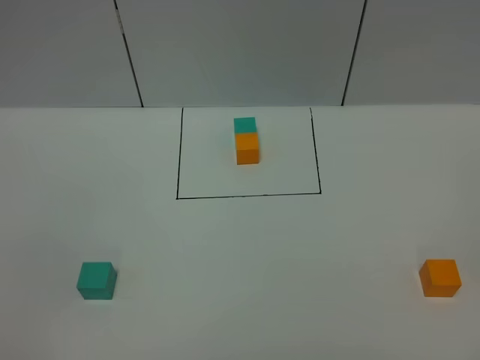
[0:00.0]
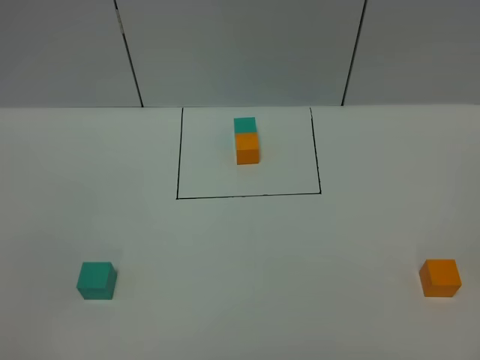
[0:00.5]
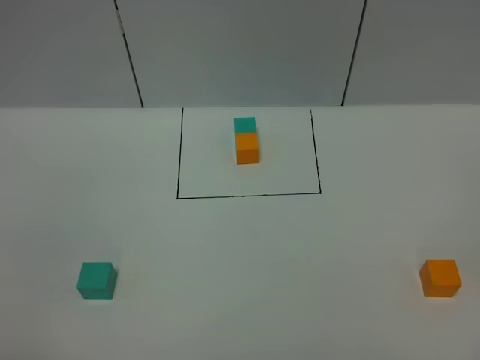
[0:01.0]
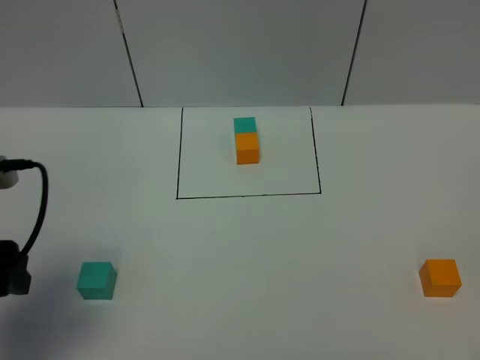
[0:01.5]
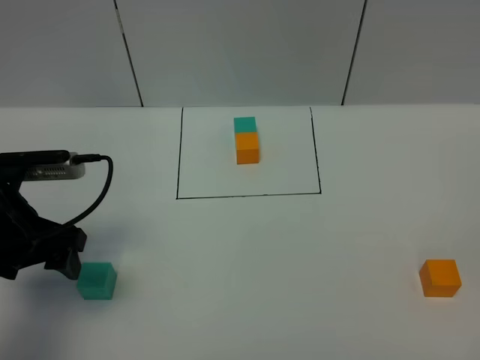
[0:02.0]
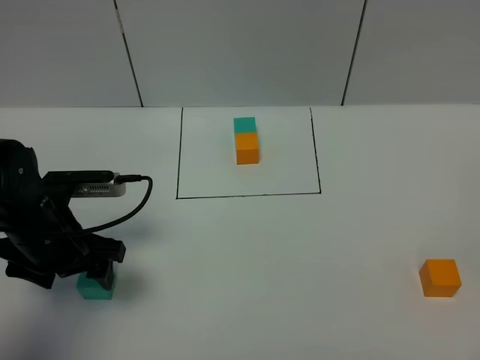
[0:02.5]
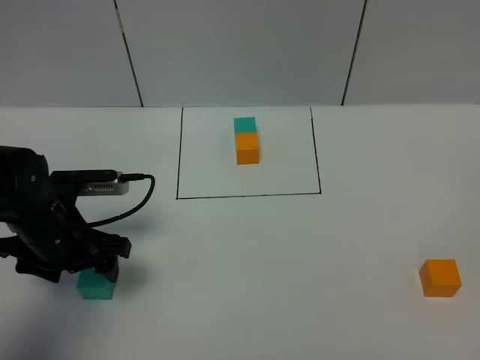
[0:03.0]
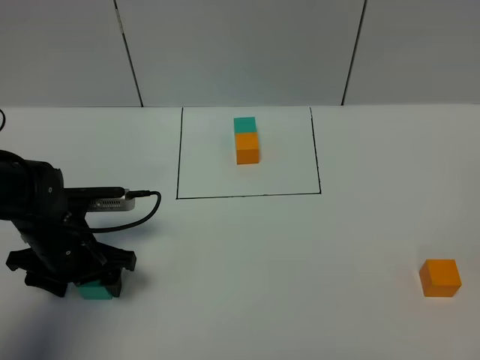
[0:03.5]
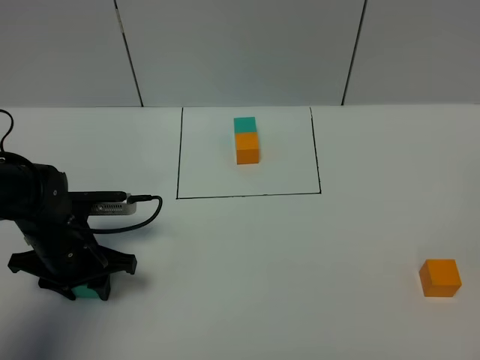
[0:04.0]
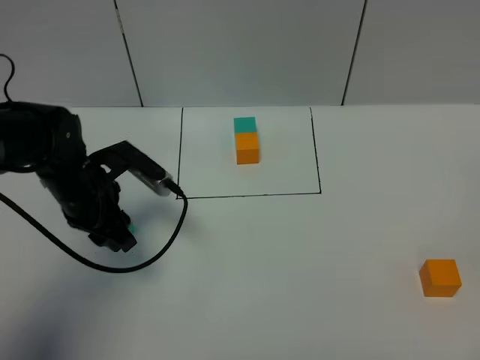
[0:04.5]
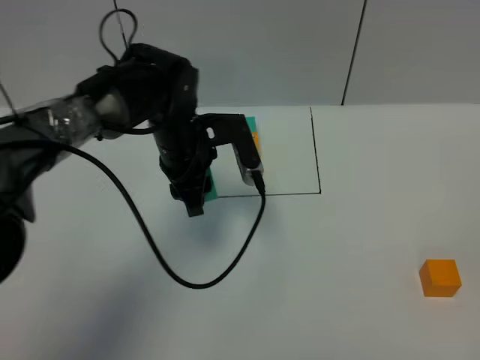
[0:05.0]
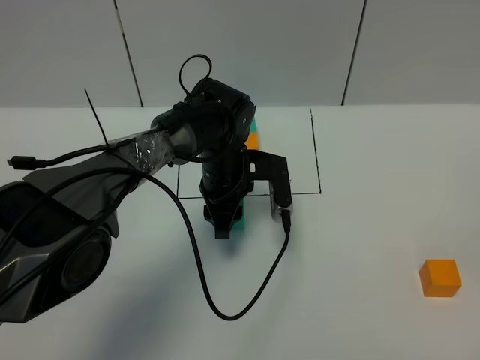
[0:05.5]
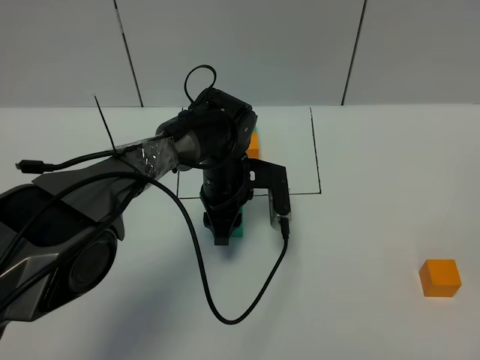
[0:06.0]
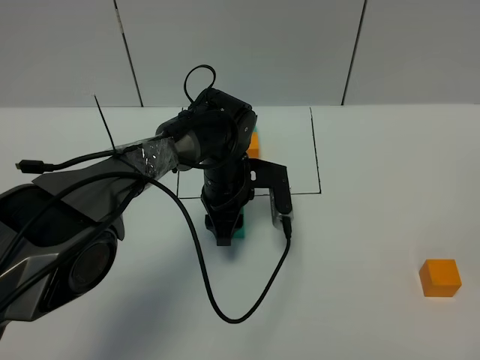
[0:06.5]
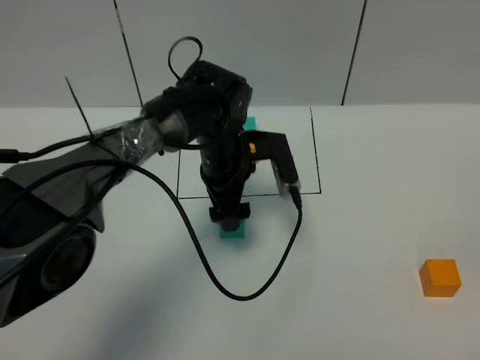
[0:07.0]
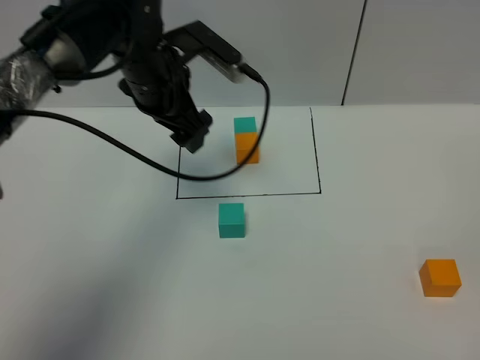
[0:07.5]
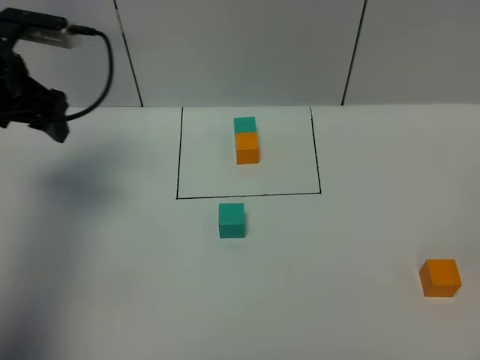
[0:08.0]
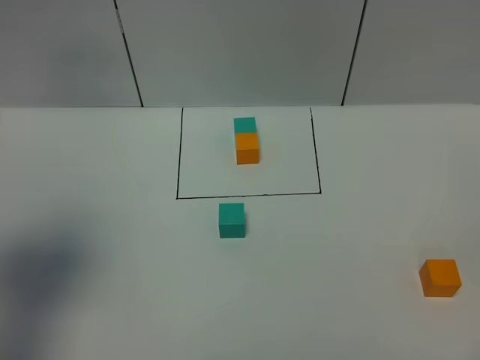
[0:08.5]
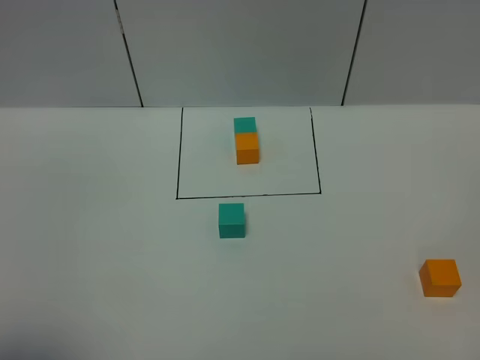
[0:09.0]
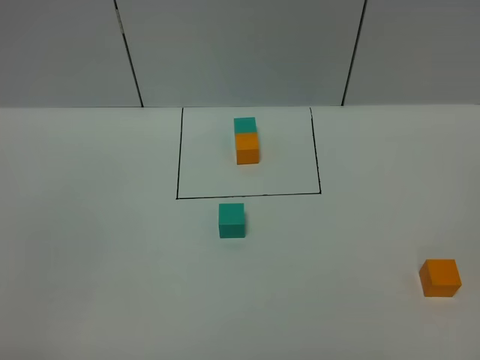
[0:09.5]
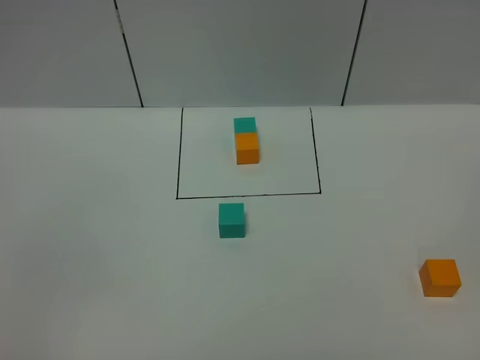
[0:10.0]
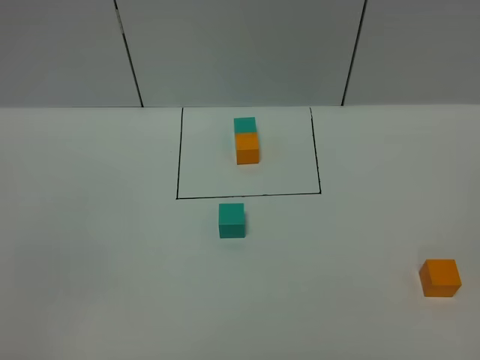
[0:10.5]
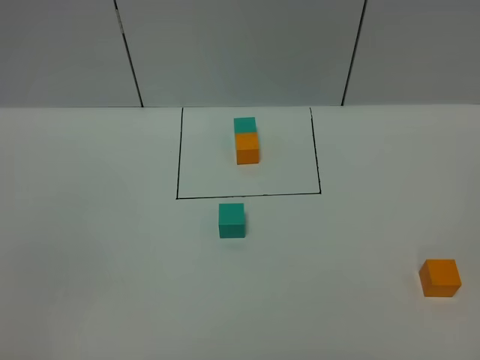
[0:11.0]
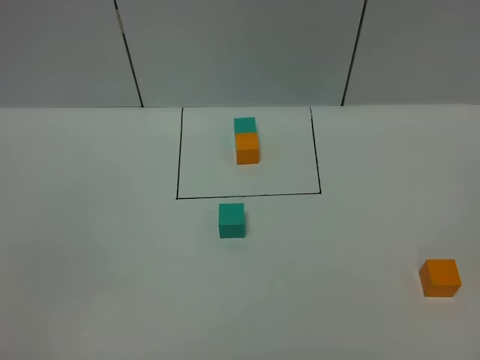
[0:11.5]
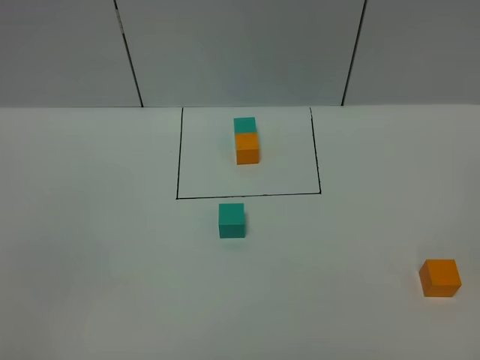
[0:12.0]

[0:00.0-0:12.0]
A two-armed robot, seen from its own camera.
Task of the whole recording: According to the building block template in front, assemble the scattered blocks together.
Step, 0:01.5 to 0:06.5: Put the green cube in the center of the table.
0:00.0 to 0:02.0: The left gripper goes roughly 30 cm forward.
0:02.0 to 0:04.0: The left gripper goes some 10 cm downward, and closes.
0:04.0 to 0:06.0: The left gripper is displaced to the right and forward by about 25 cm.
0:06.0 to 0:08.0: The left gripper moves to the left and upward, about 30 cm, and opens up.
0:08.0 to 0:10.0: The left gripper moves backward, some 40 cm.

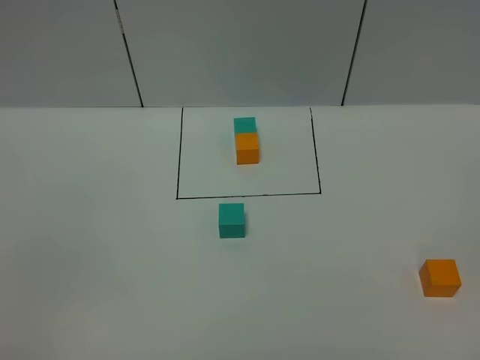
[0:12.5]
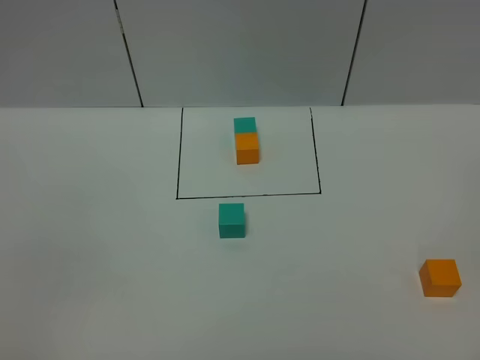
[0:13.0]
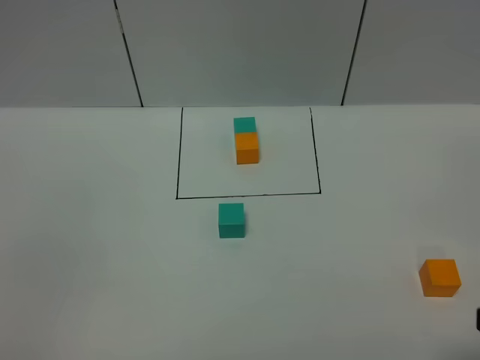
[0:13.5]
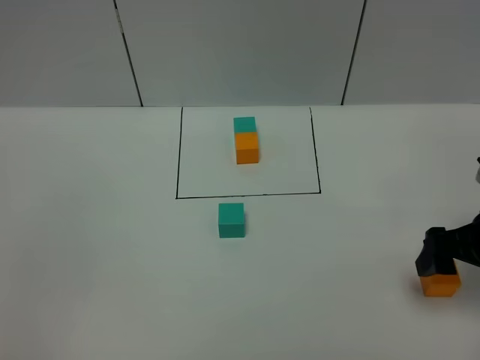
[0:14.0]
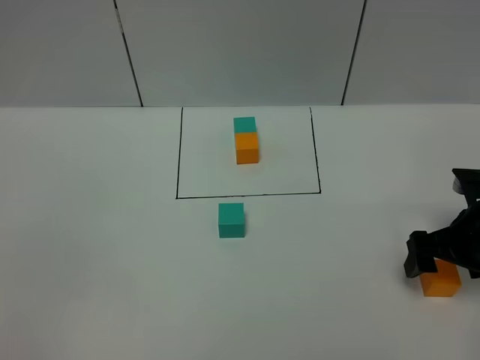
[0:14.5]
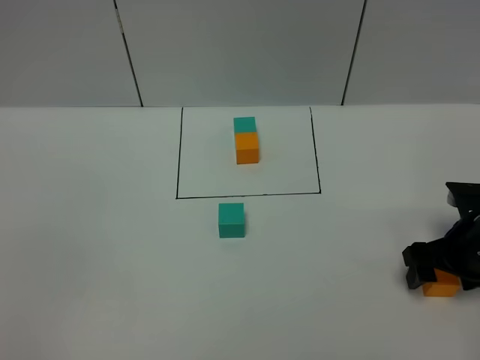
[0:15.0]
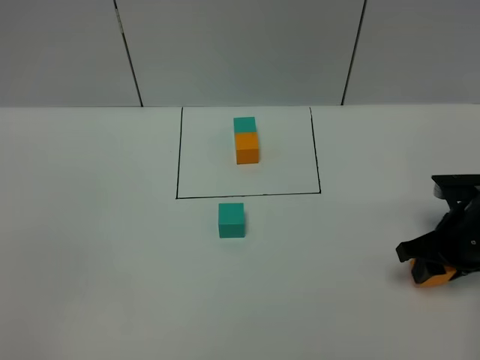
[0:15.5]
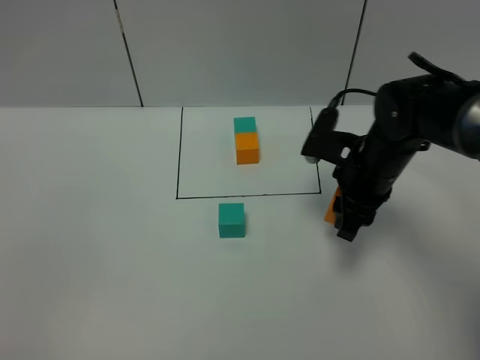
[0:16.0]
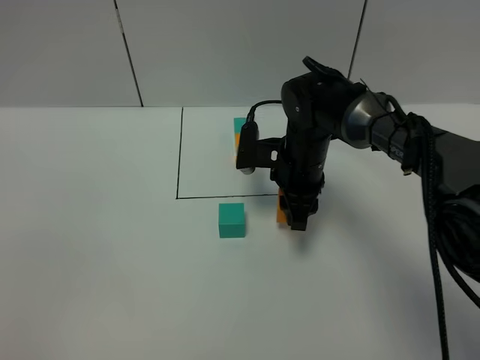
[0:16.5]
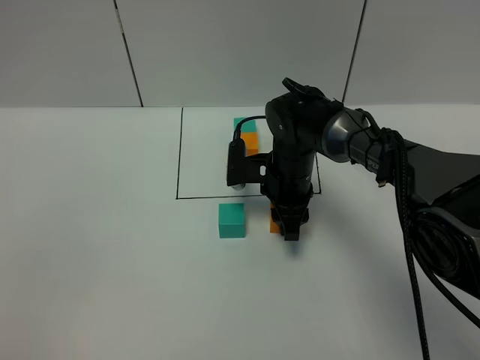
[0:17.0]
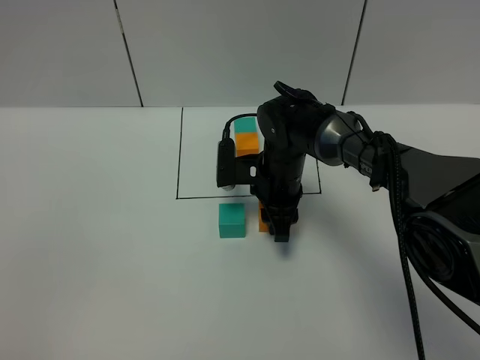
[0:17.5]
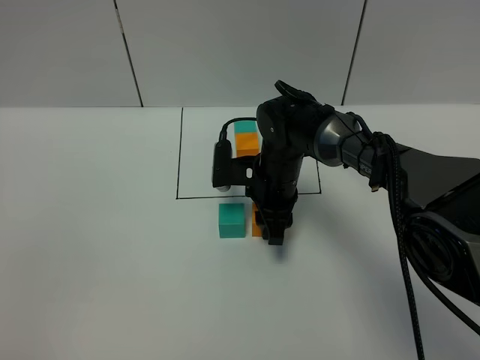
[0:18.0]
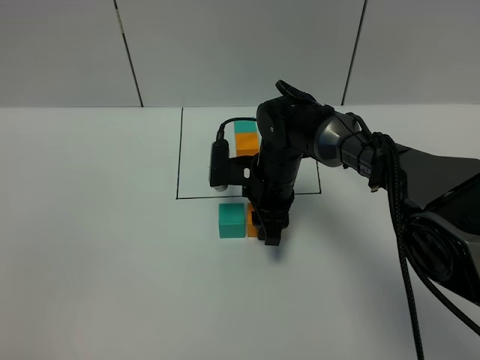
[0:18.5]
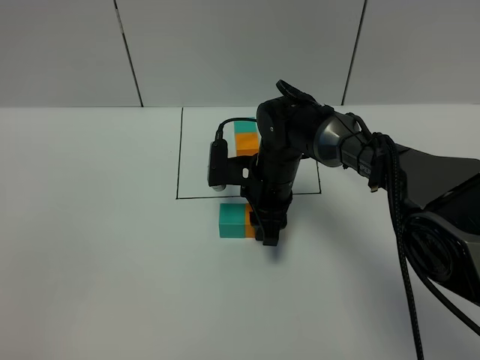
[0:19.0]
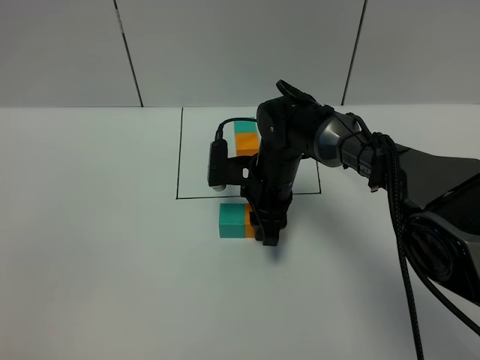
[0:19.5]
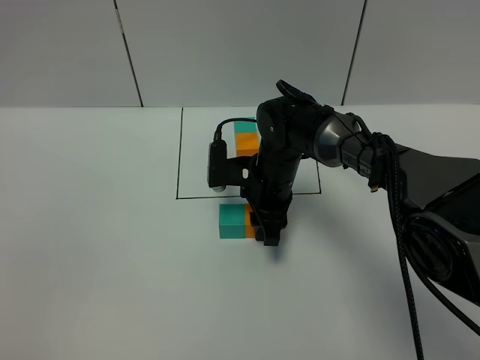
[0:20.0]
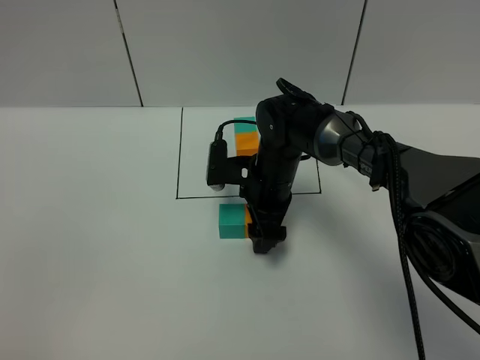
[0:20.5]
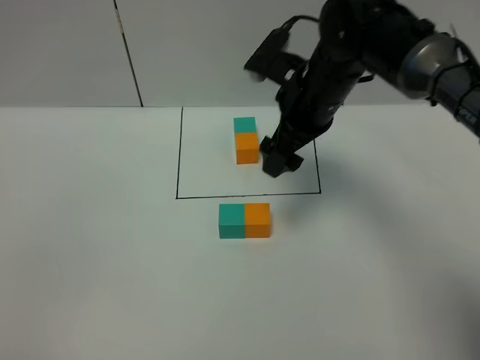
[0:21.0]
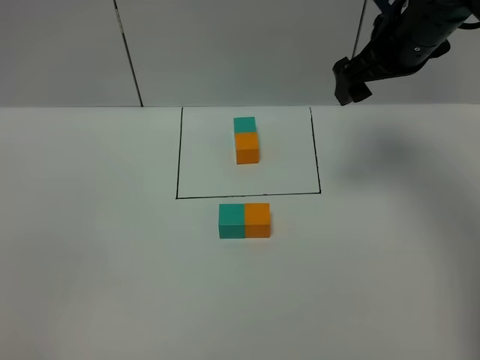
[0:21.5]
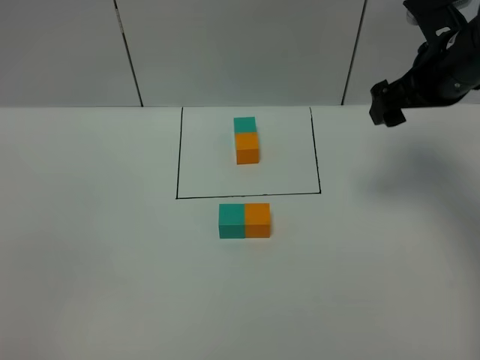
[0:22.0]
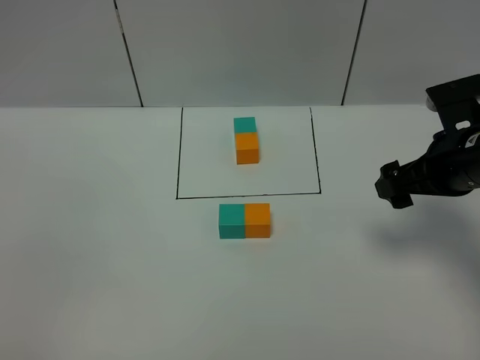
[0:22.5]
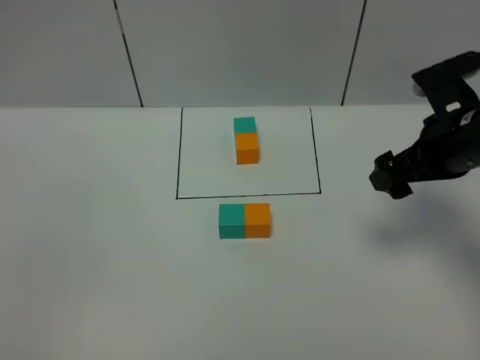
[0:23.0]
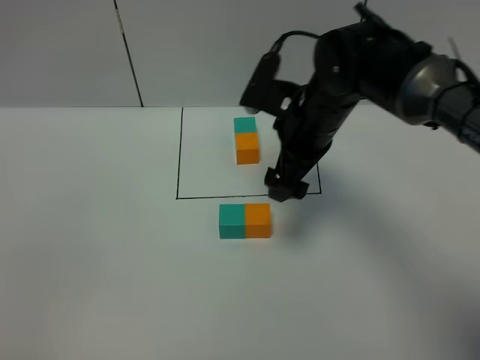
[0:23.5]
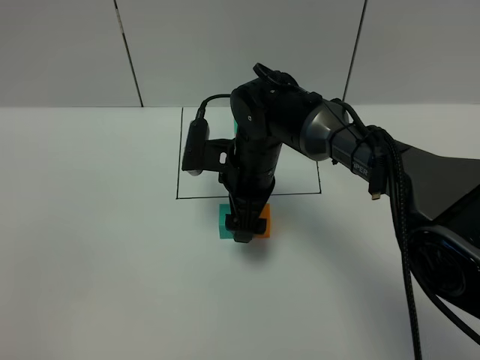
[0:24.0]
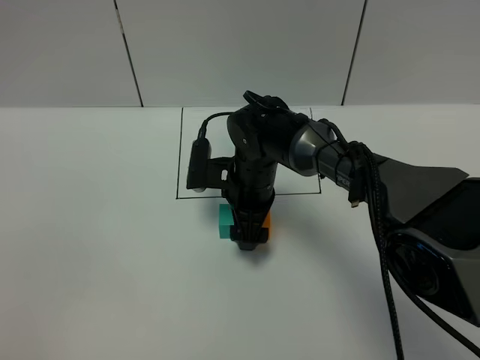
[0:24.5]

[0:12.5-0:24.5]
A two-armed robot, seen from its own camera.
Task of the whole recording: According to the building block template in front, assemble the scattered blocks together.
Step, 0:12.5 to 0:20.5: Put the orange cube on the right of the green cube.
0:12.5 to 0:14.5: The right gripper heads forward and downward, covering about 35 cm.
0:14.5 to 0:16.5: The right gripper goes some 25 cm to the left and forward, and closes.
0:16.5 to 0:18.5: The grippers stay close to where they were, moving slightly.
0:18.5 to 0:20.5: The right gripper opens its fingers.
0:20.5 to 0:22.5: The right gripper travels to the right, upward and backward by roughly 25 cm.
0:22.5 to 0:24.5: The right gripper heads to the left and downward, covering roughly 25 cm.

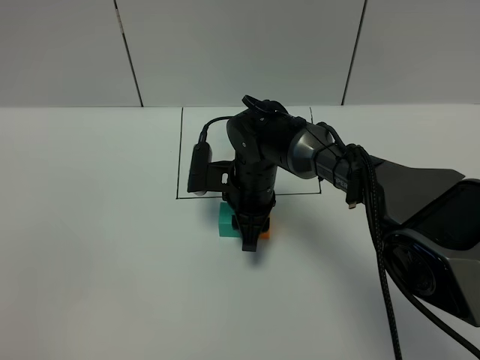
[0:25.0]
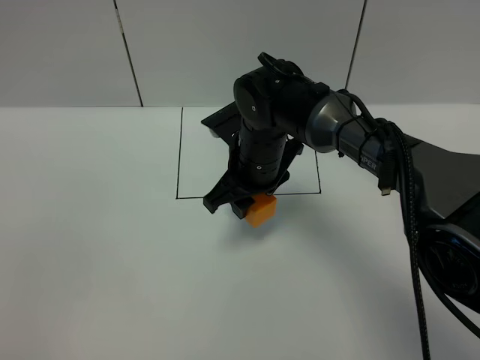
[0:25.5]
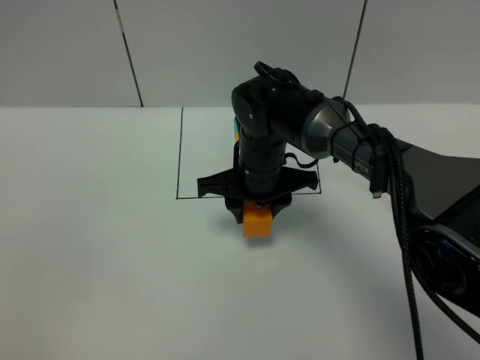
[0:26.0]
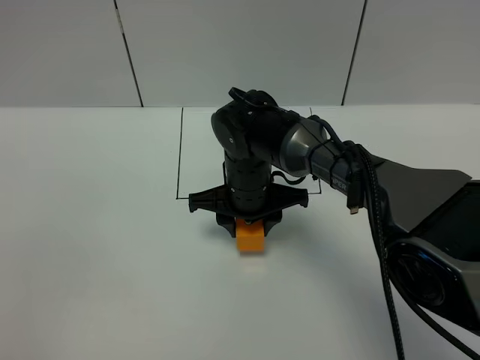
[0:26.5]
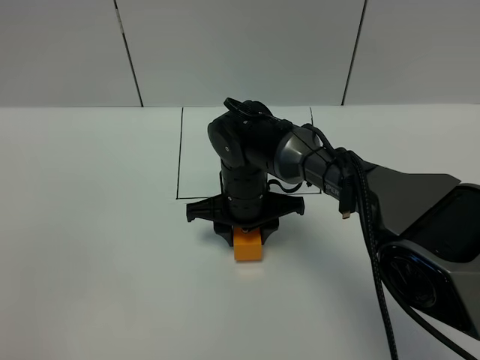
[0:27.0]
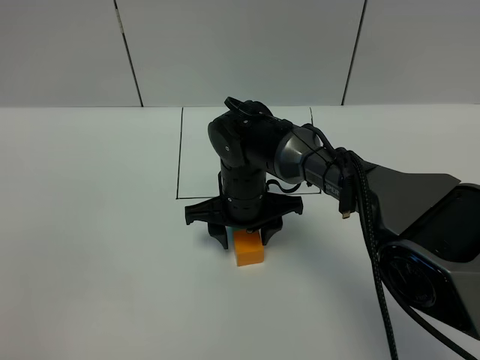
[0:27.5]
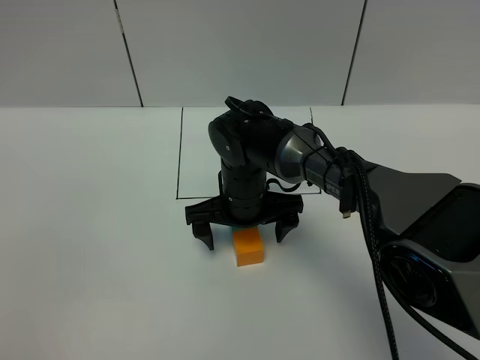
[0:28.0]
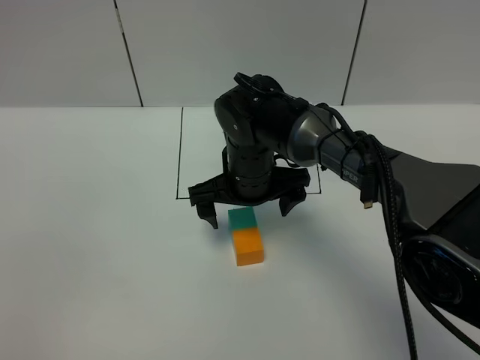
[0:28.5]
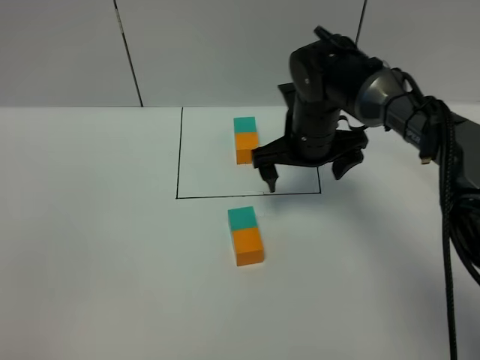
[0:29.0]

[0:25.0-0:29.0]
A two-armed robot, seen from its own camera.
Task of the whole recording: According to the building block template in front, assemble the scattered blocks together.
Step, 0:25.0 to 0:28.0: Adjust the pose of the building blocks.
0:27.0 to 0:29.0: The right gripper shifts about 15 cm to the right, forward and upward, and opens up.
